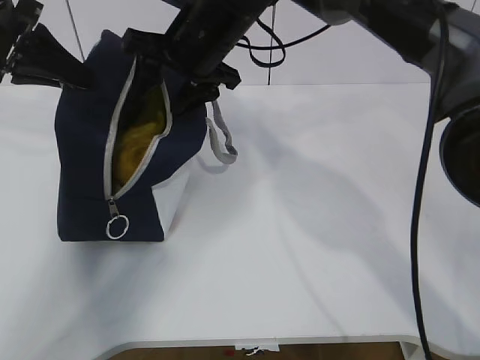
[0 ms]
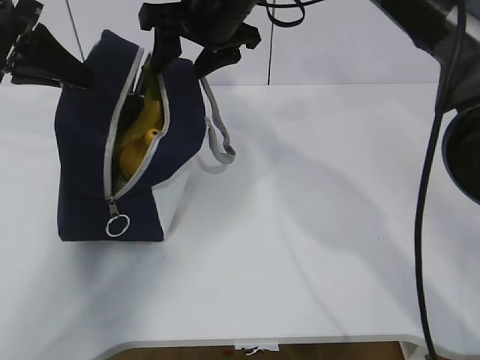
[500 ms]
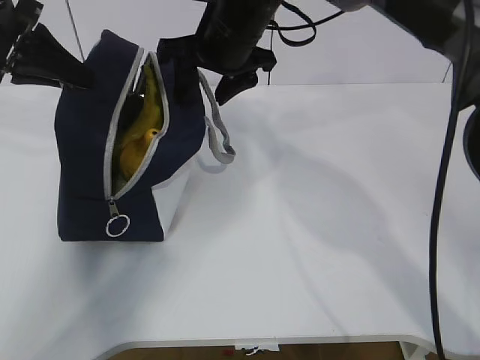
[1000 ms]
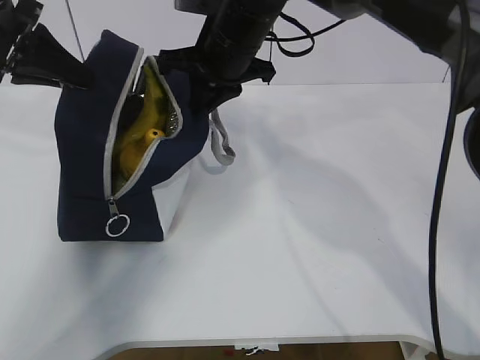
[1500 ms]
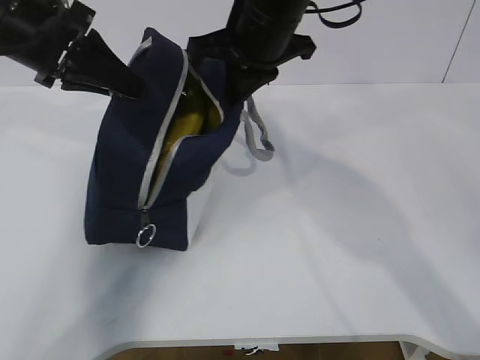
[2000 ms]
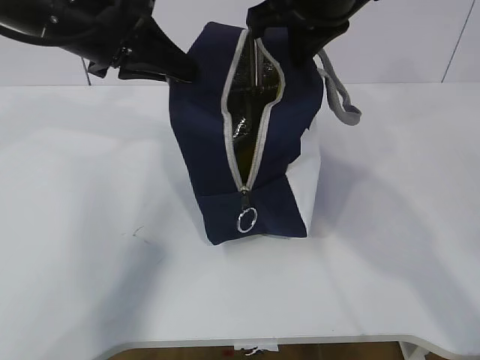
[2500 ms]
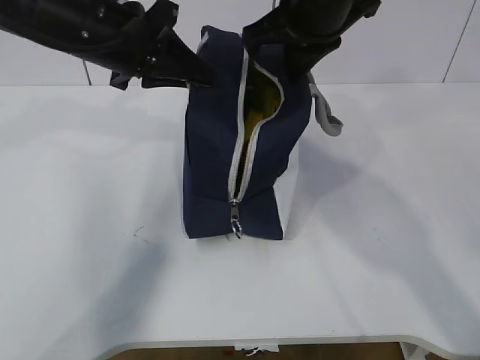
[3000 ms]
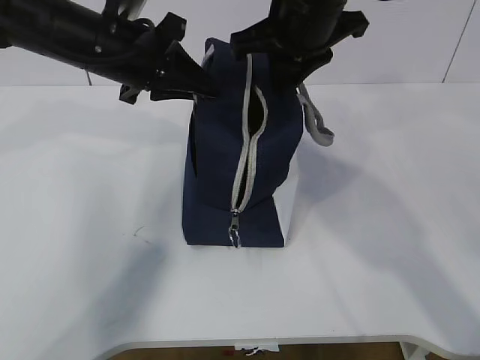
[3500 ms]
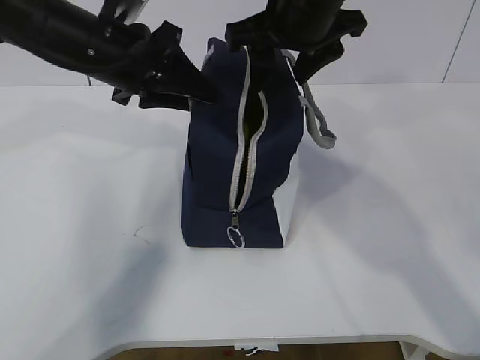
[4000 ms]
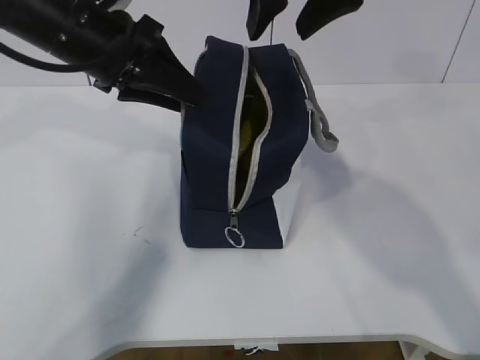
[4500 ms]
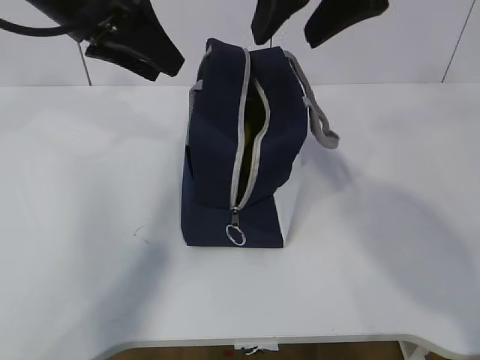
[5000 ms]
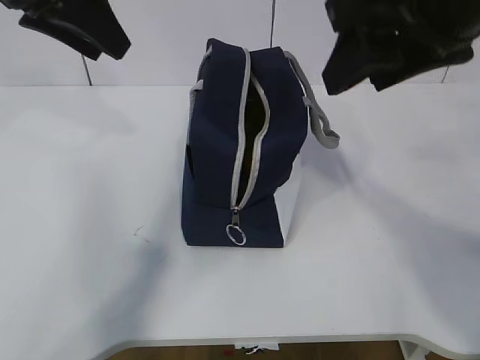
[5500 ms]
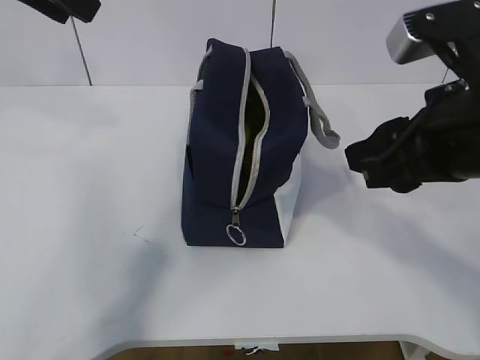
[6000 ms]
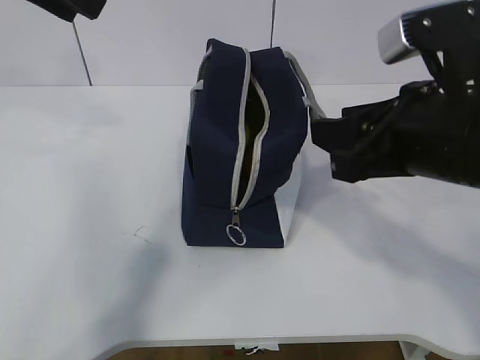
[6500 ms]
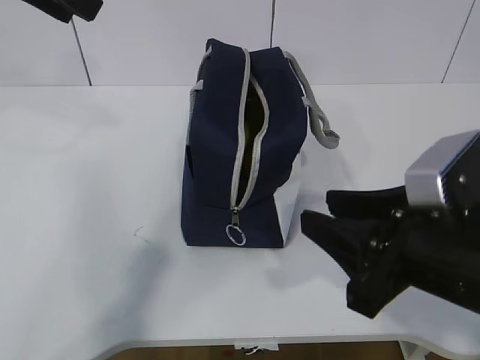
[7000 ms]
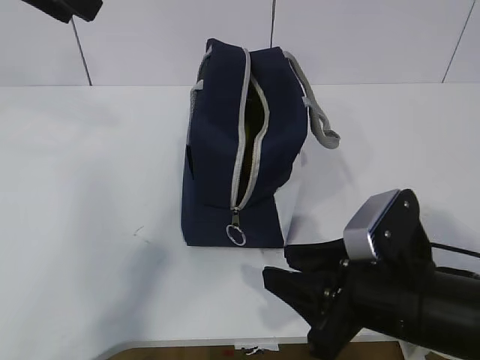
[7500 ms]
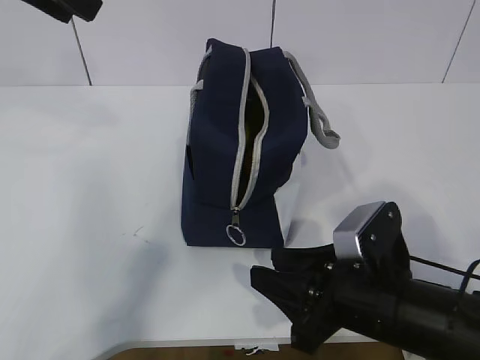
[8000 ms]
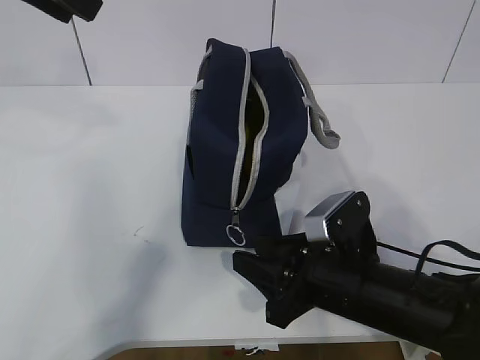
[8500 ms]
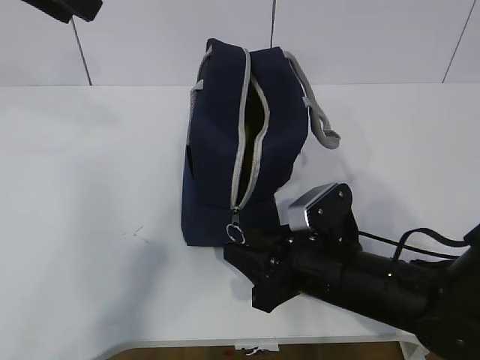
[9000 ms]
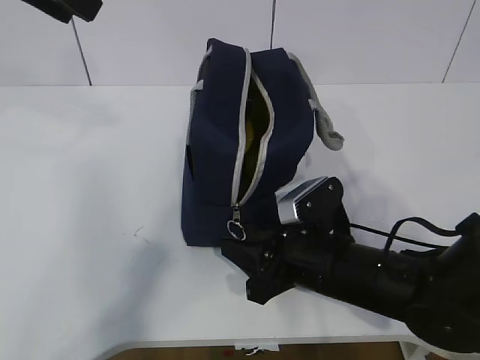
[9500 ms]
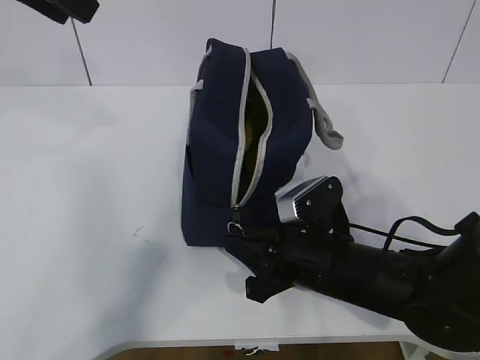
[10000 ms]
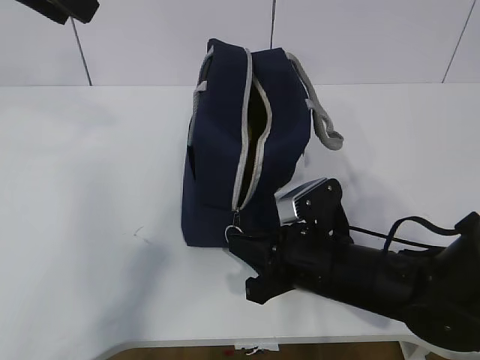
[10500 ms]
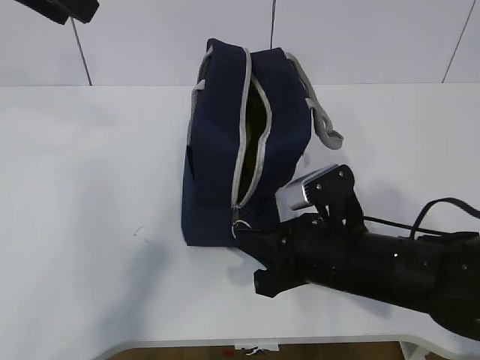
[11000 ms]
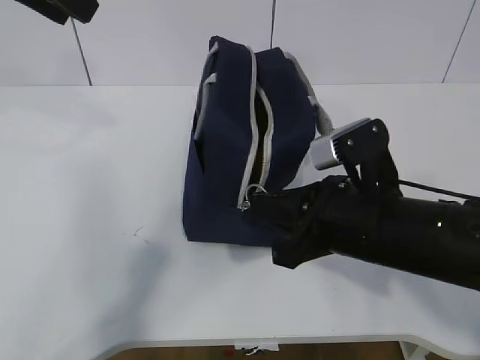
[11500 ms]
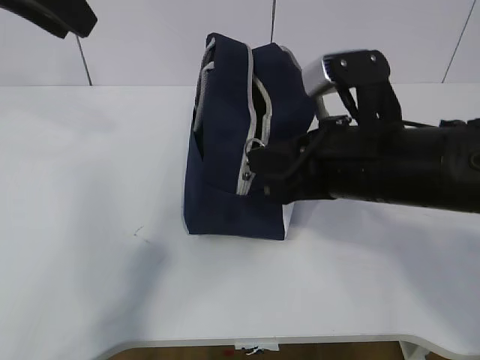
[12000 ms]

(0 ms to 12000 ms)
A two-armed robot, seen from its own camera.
0 ms - 2000 ms: Both grippers move to the right, roughly 5 cm. The right gripper closes.
2000 ms - 4000 ms: The left gripper travels to the right by some 5 cm, and opens. The right gripper opens up.
4000 ms - 6000 ms: The left gripper moves upward and backward, approximately 15 cm, while the right gripper travels backward and to the right by approximately 20 cm.
6000 ms - 8000 ms: The right gripper goes approximately 20 cm downward.
8000 ms - 10000 ms: The right gripper travels forward by some 5 cm.
10000 ms - 12000 ms: The right gripper shifts some 15 cm upward, and closes.

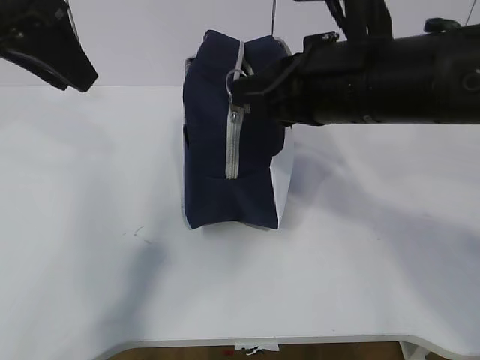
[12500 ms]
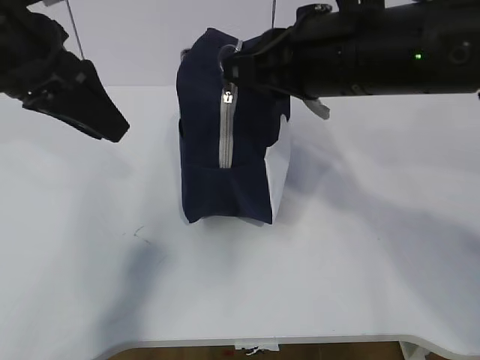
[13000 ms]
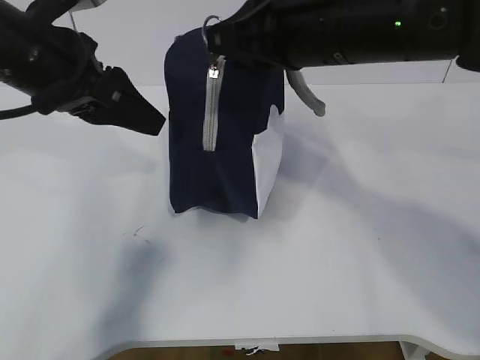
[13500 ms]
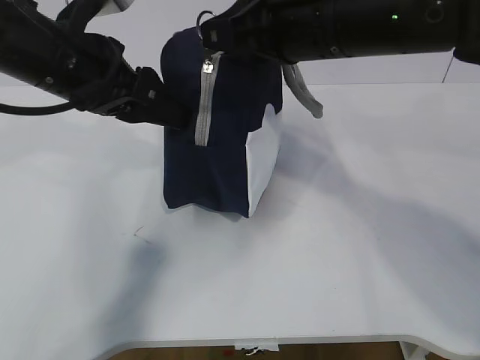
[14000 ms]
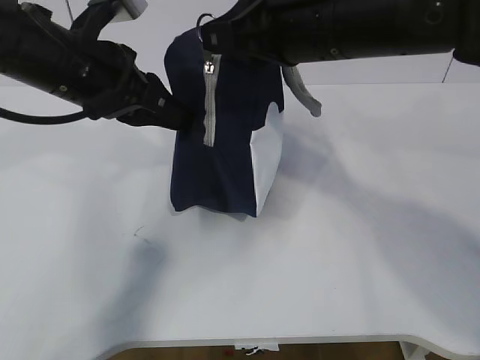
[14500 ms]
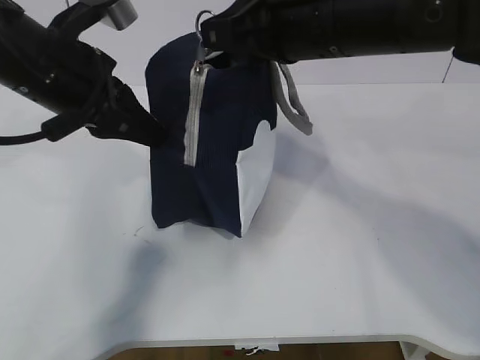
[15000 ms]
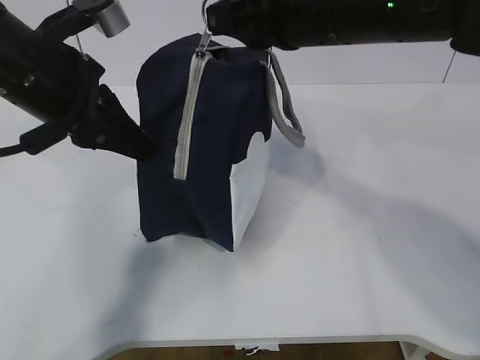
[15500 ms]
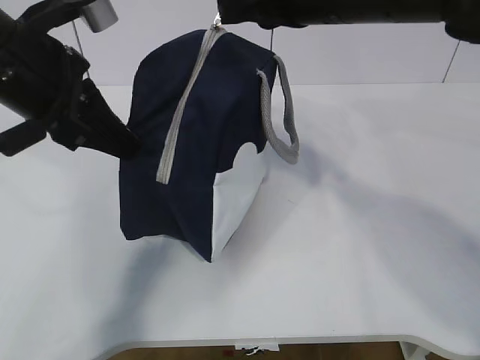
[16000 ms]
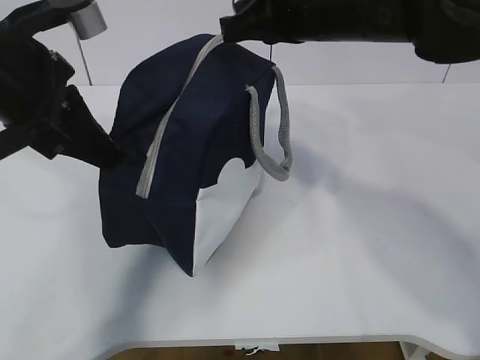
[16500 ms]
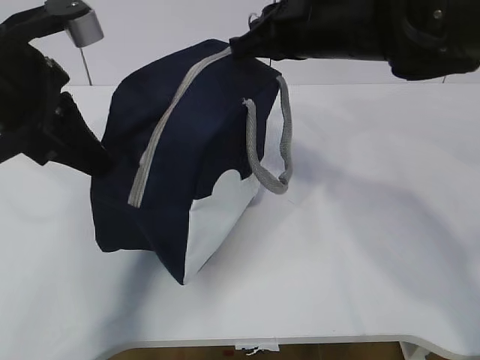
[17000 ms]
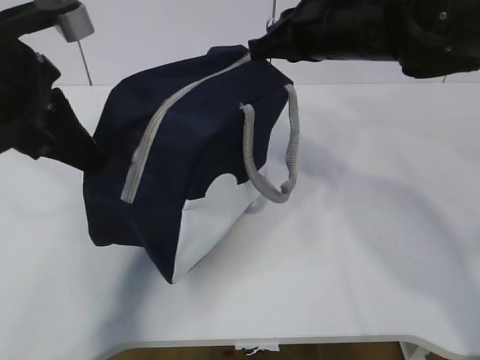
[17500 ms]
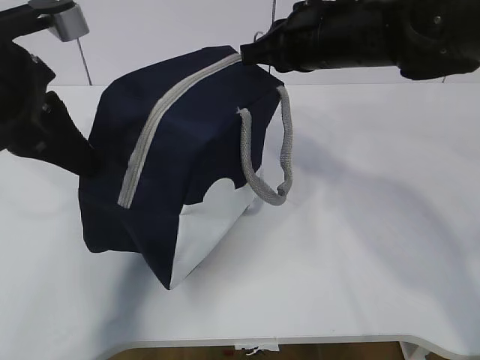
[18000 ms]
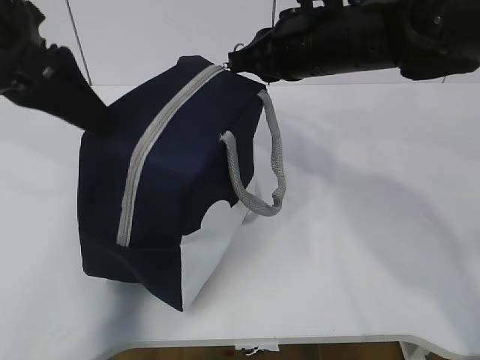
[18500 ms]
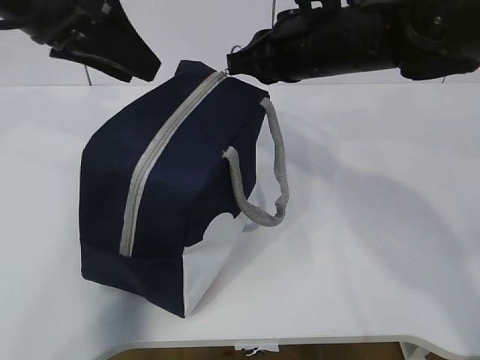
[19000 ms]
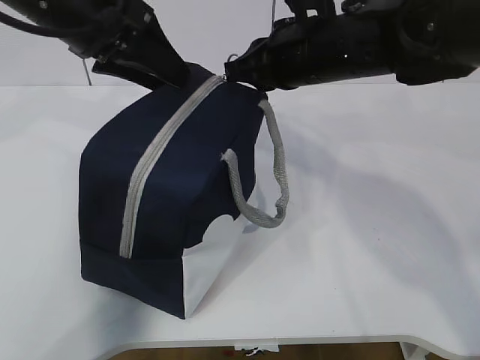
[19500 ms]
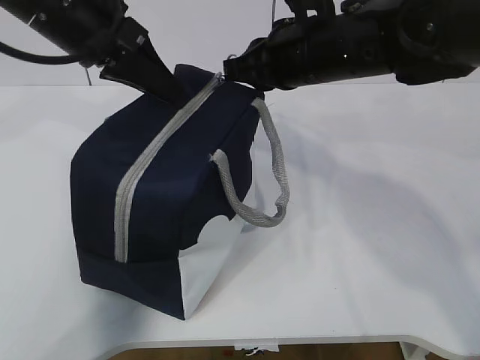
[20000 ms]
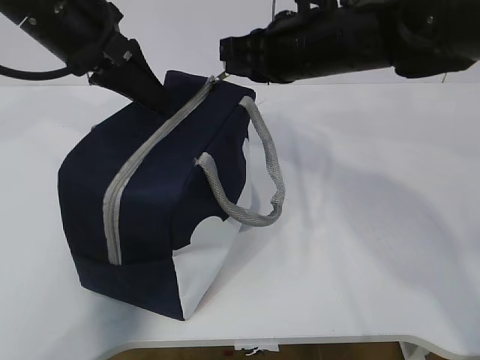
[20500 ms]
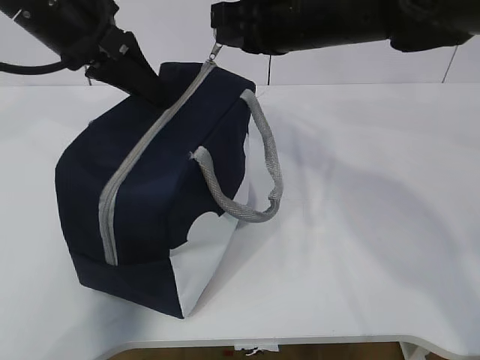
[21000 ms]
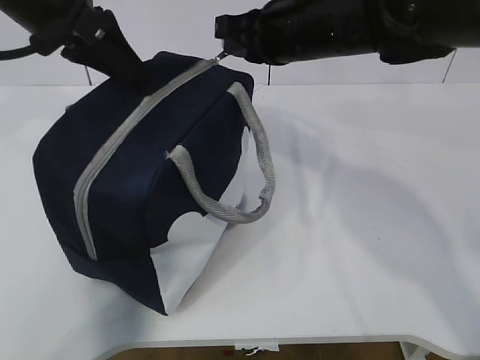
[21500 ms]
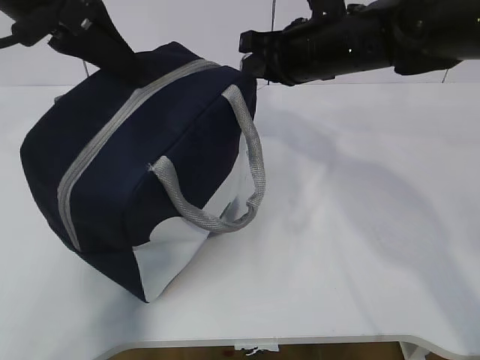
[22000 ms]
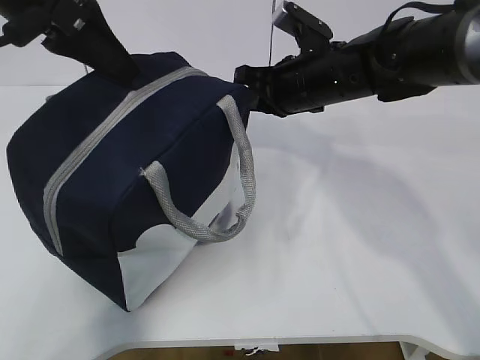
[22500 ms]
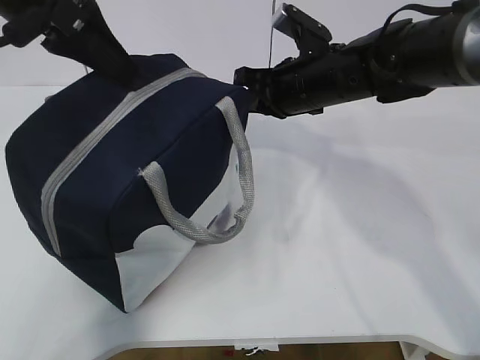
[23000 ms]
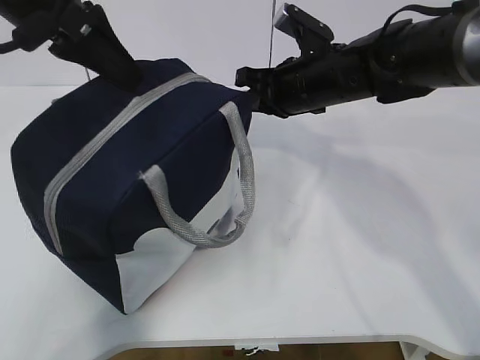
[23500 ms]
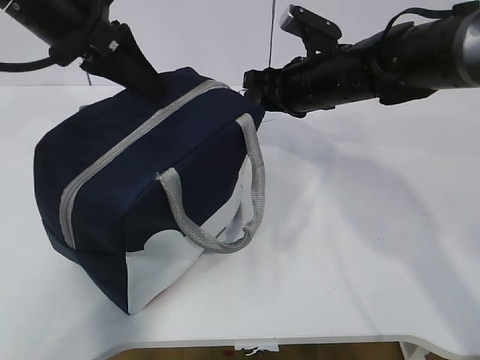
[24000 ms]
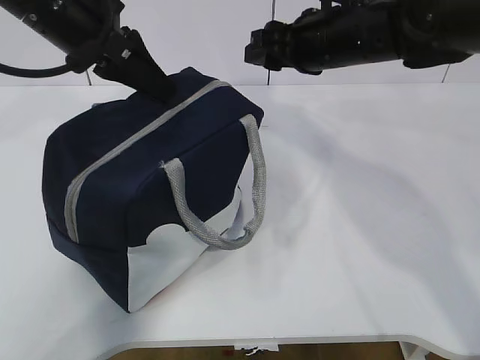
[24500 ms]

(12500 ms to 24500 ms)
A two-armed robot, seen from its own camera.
12500 ms - 14500 ms: The left gripper goes roughly 10 cm downward and to the right, and closes up, while the right gripper shifts by about 5 cm.
14500 ms - 16500 ms: The left gripper goes roughly 5 cm backward.
16500 ms - 18500 ms: The left gripper opens up; the right gripper changes place by roughly 5 cm.
18500 ms - 20500 ms: The left gripper shifts some 5 cm forward, and closes its fingers.
20500 ms - 22500 ms: The left gripper shifts by roughly 5 cm; the right gripper is displaced downward by roughly 5 cm.
22500 ms - 24500 ms: The left gripper changes place by some 5 cm, while the right gripper moves about 5 cm, and opens.

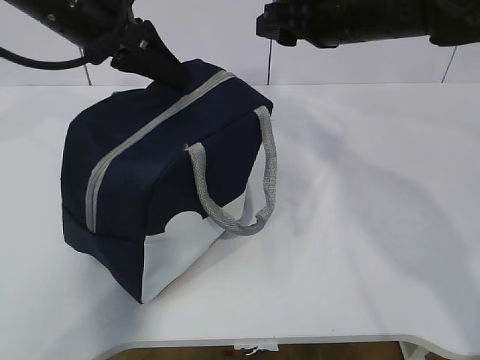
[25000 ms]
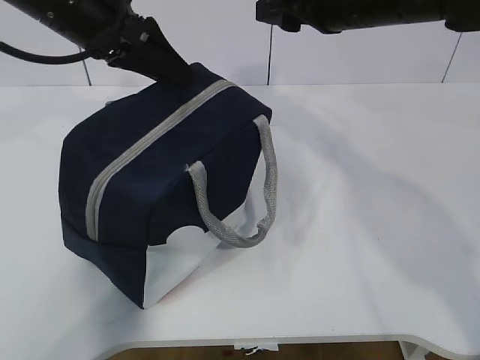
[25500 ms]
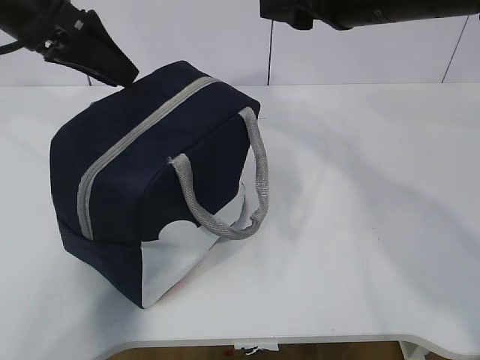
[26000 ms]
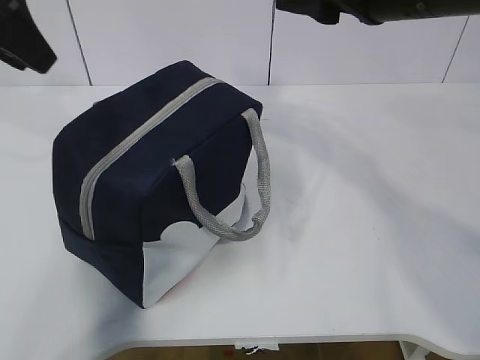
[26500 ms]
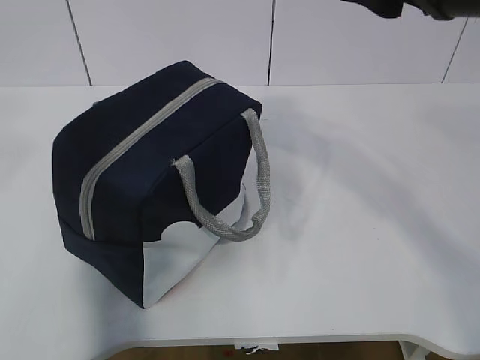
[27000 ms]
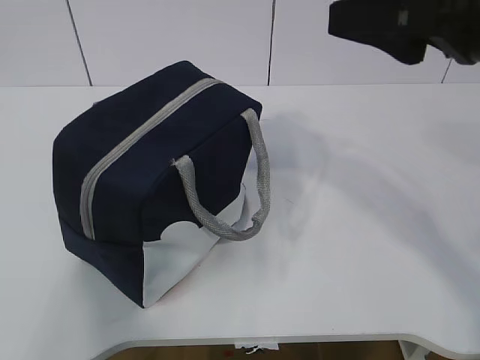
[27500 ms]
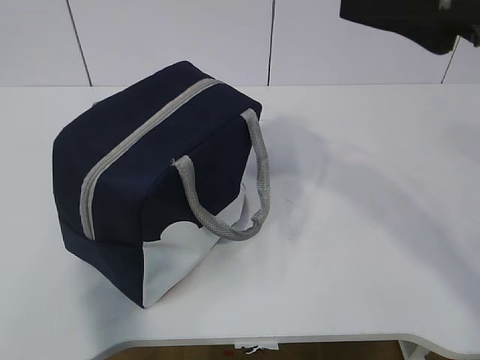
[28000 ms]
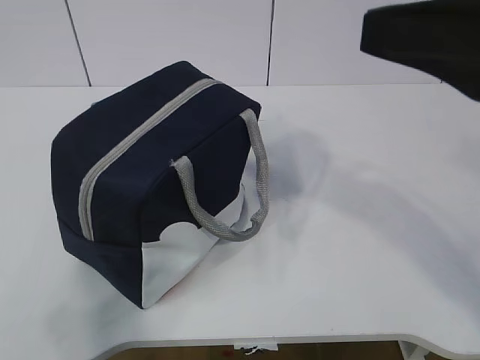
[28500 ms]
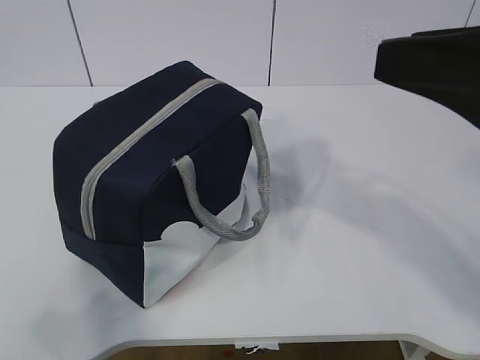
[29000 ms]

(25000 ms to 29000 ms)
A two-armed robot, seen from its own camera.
25000 ms - 27000 ms: The right gripper travels backward and upward by roughly 15 cm, while the left gripper shifts some 25 cm backward, to the left and upward, and opens its fingers.
27000 ms - 29000 ms: The right gripper heads backward, covering roughly 10 cm. Meanwhile the left gripper moves backward and downward, roughly 25 cm.
